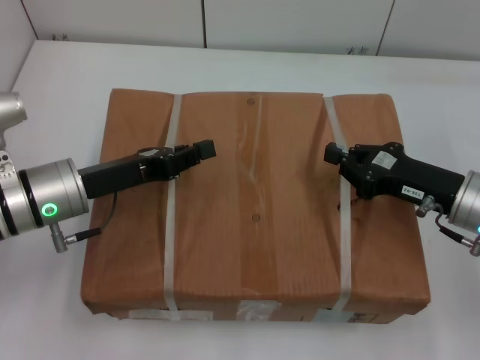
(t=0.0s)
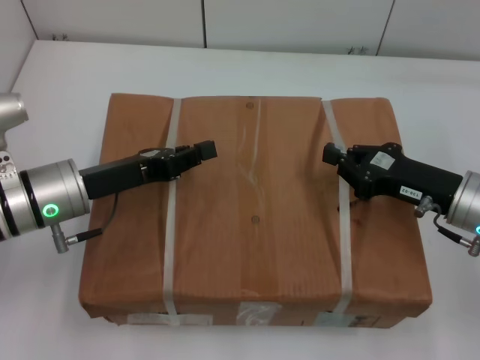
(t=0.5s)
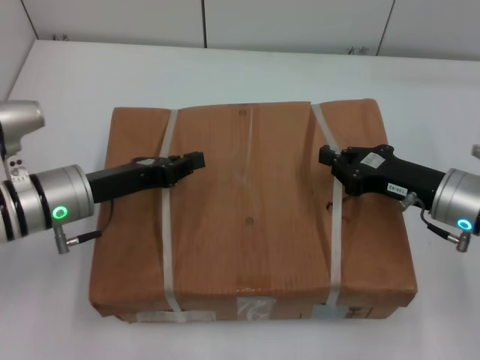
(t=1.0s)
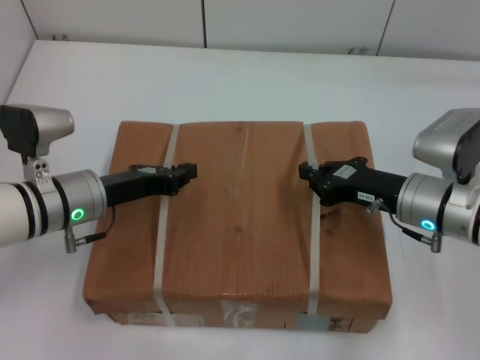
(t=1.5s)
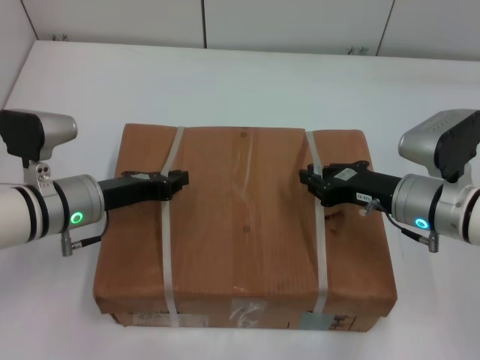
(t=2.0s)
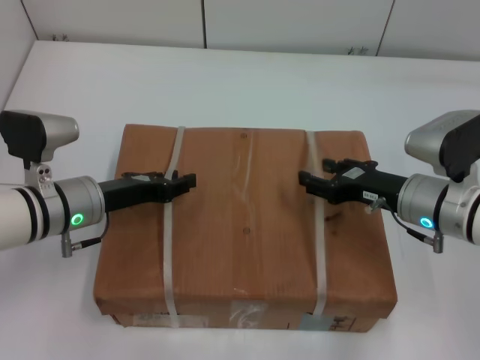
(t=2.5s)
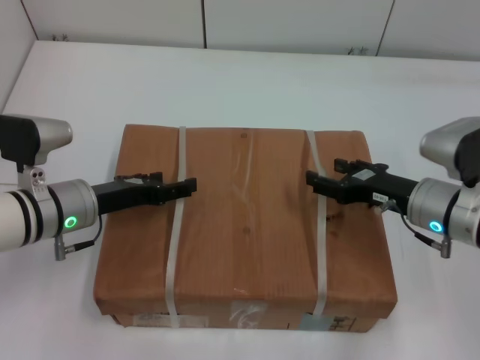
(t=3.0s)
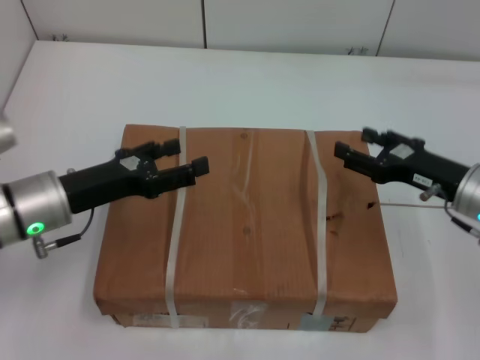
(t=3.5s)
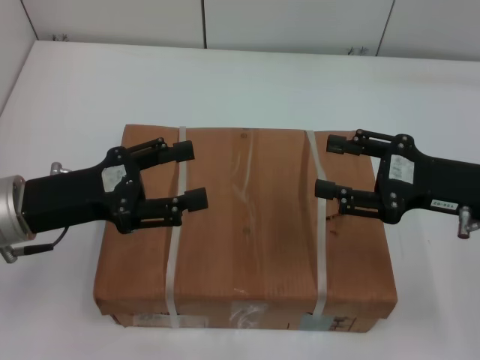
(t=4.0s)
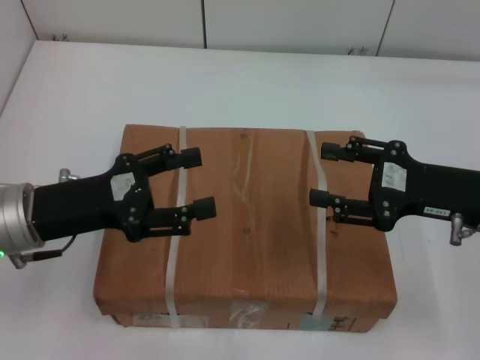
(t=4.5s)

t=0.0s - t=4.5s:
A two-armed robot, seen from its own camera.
Task of the whole recording: place the box on the table with both arms.
Step, t=0.0s - t=1.5s: Place the box on the table with left gripper.
Step, t=0.0s - t=1.5s: Place the box on the table with right gripper.
Step, t=2.0s - t=2.5s: Loosen the box on the table with left gripper.
Step, t=2.0s - t=2.5s: Loosen the box on the table with right gripper.
t=0.0s - t=2.0s: The right gripper shifts by some 5 cm.
t=2.0s - t=4.5s: The left gripper travels upward and backward by some 10 cm, and opens up; the right gripper is displaced upward and to the right by about 10 cm, and opens up.
